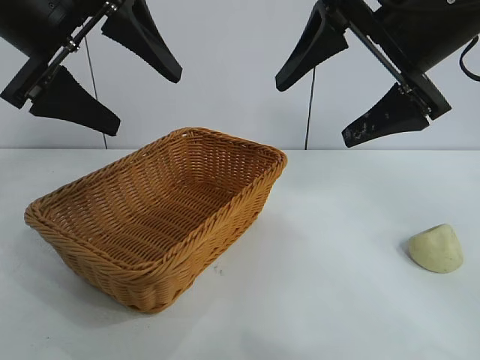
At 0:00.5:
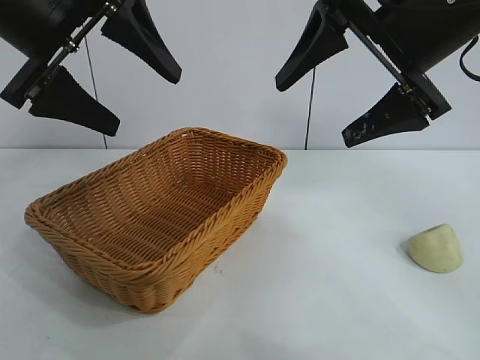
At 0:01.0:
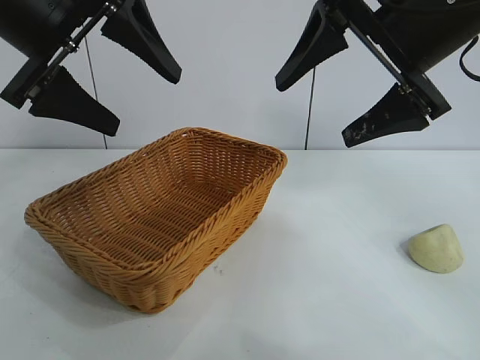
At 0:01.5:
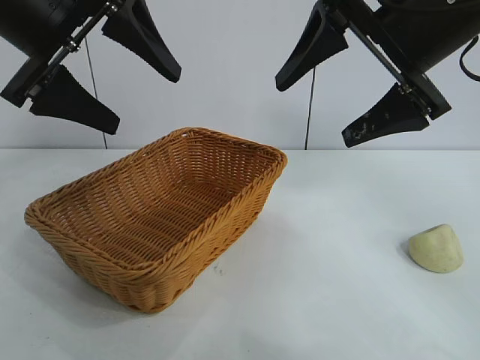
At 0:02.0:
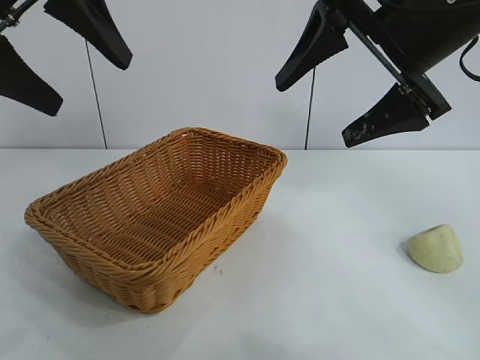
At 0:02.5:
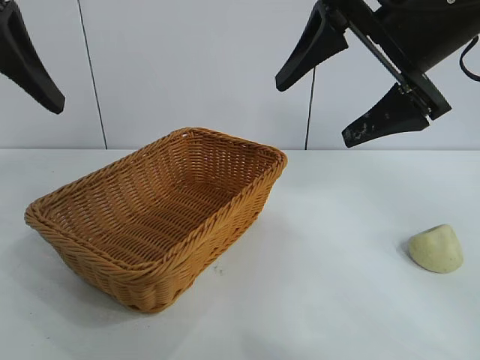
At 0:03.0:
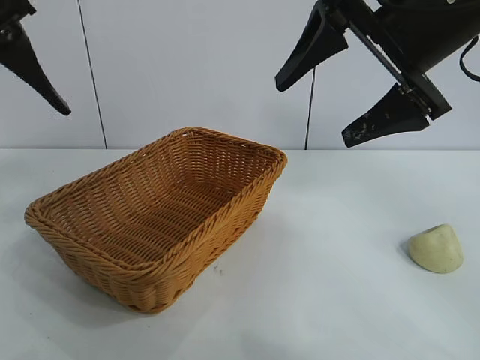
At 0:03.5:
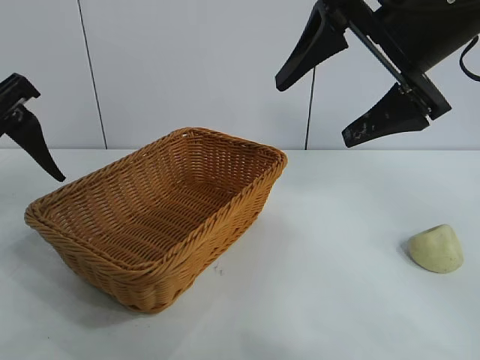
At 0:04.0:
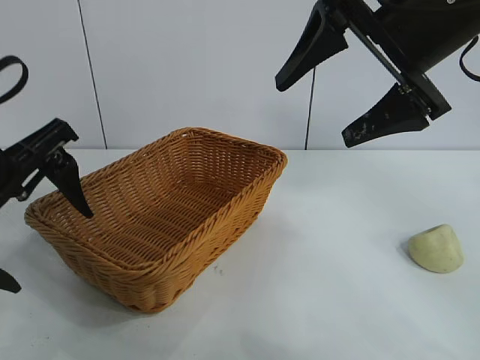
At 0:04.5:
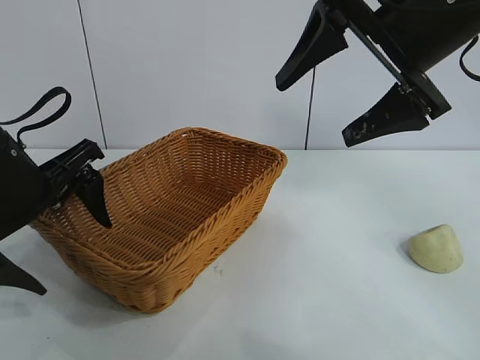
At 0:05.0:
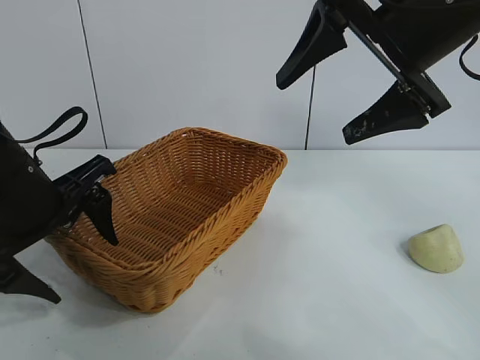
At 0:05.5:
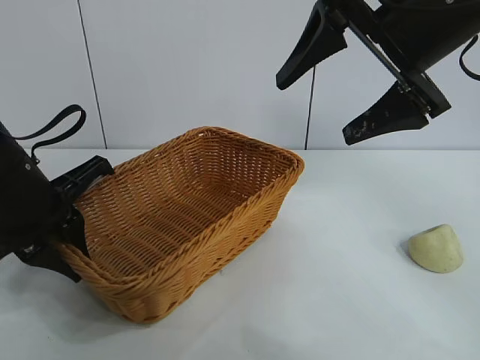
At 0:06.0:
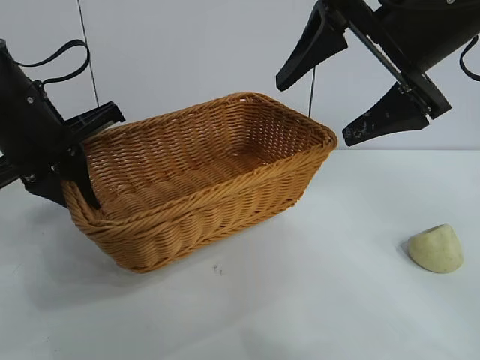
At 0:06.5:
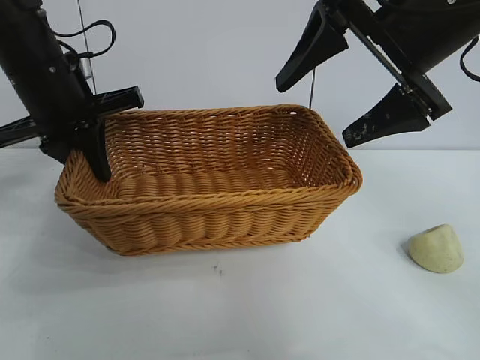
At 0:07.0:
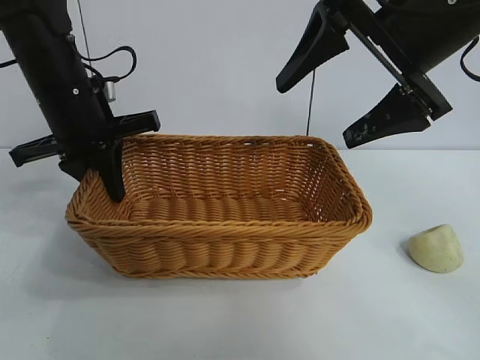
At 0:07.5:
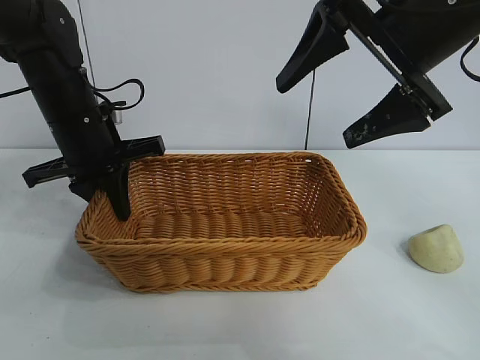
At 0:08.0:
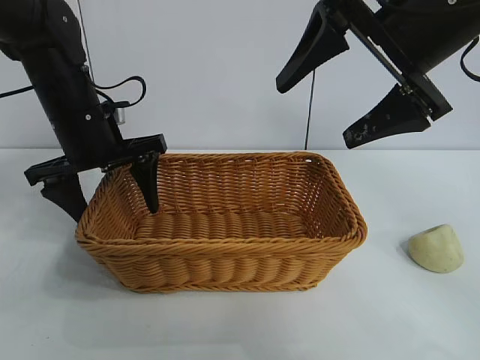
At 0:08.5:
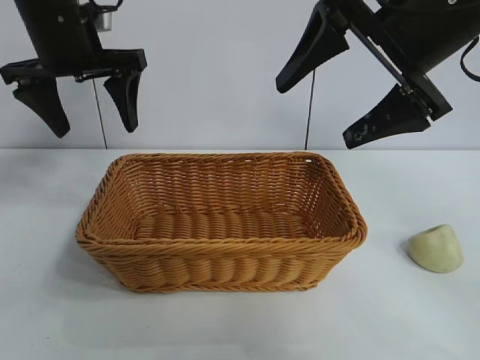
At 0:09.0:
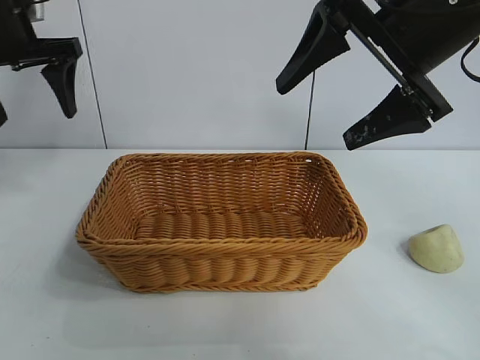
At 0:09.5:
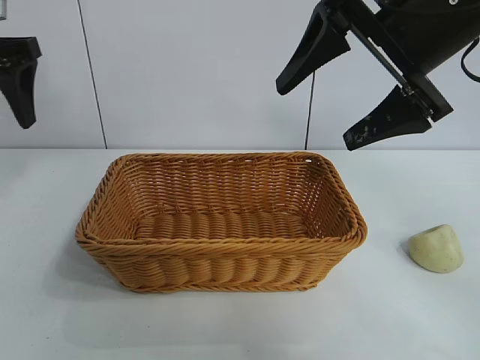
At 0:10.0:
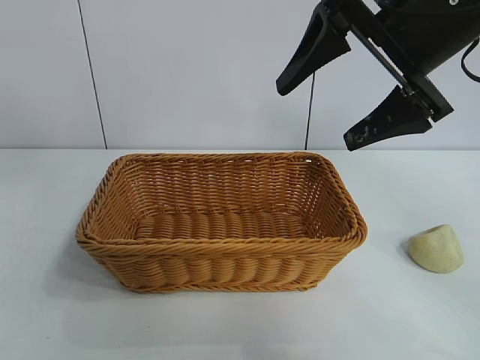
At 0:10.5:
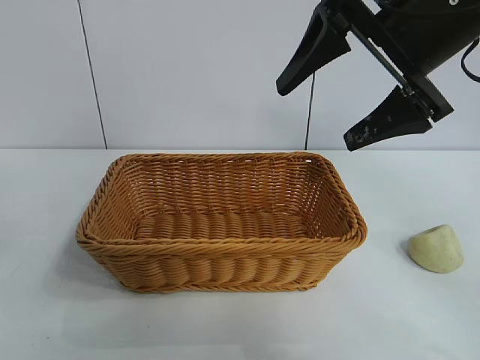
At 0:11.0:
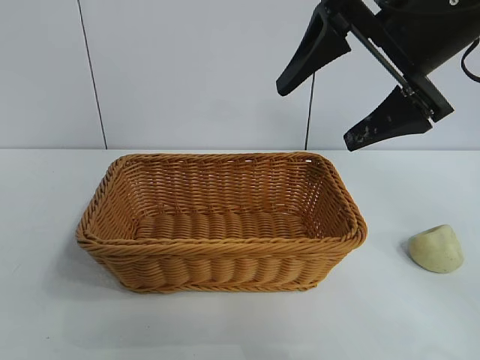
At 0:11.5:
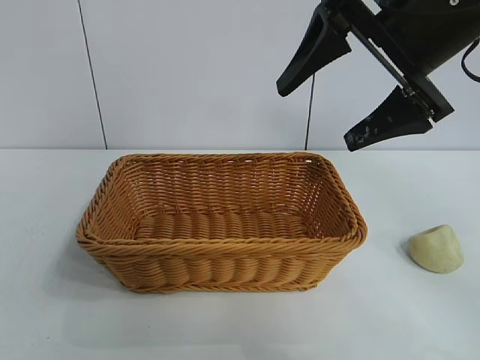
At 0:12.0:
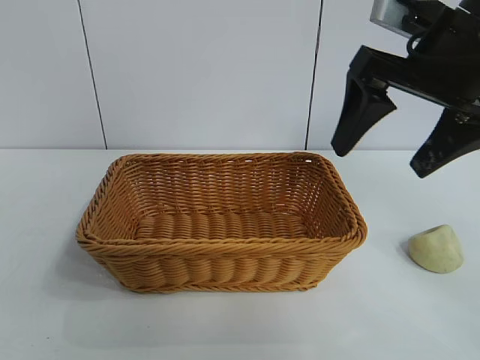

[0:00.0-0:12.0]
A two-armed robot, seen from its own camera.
Task of the whole recording: pick up the egg yolk pastry and put it into the basket.
Step, 0:01.5 to 0:05.0: Grasp the basket with left gripper.
Step, 0:05.5 to 0:07.5: Place the basket in the center of view with left gripper.

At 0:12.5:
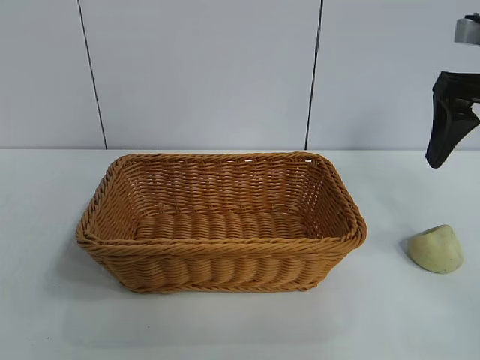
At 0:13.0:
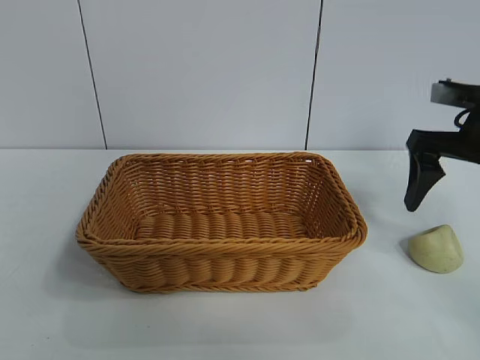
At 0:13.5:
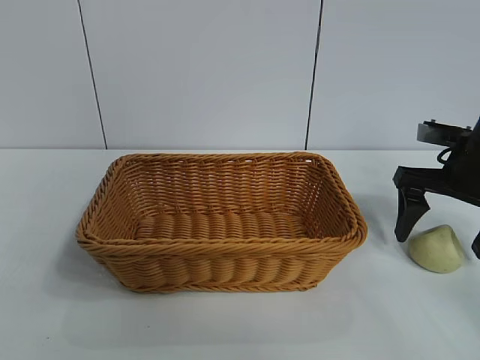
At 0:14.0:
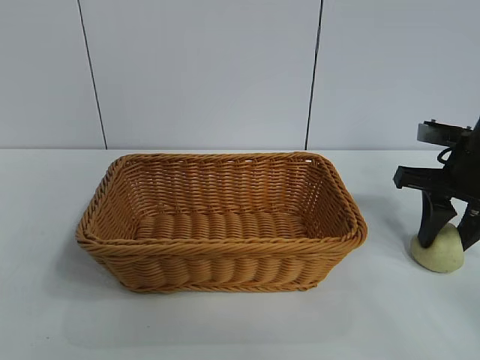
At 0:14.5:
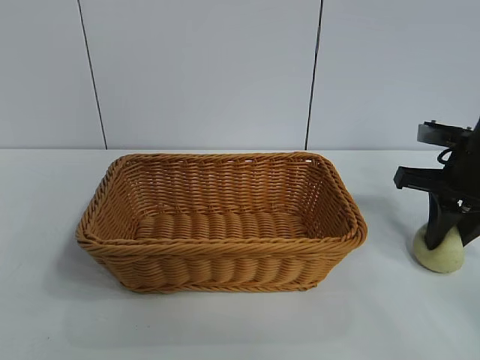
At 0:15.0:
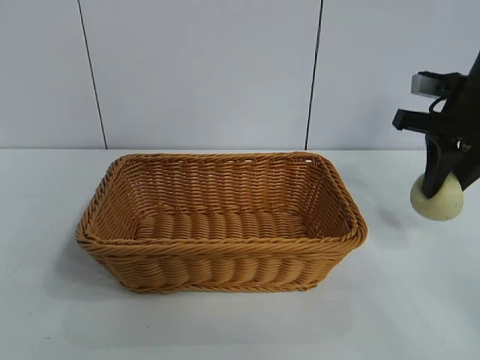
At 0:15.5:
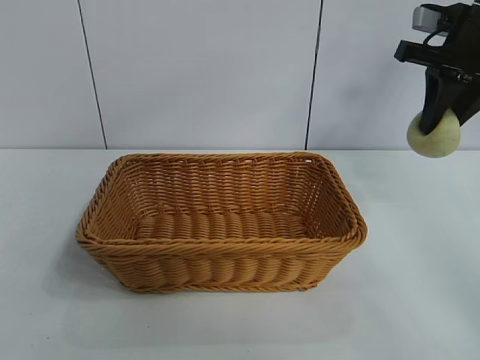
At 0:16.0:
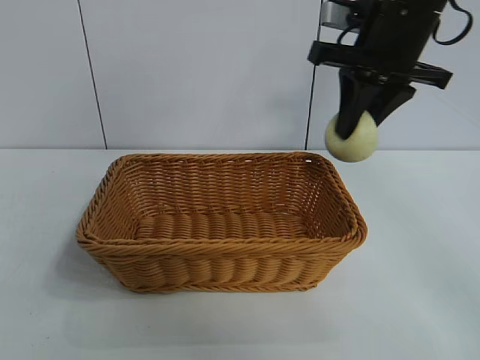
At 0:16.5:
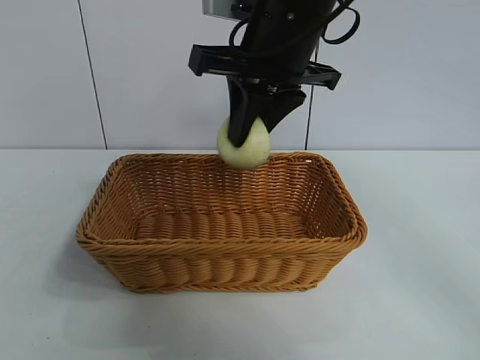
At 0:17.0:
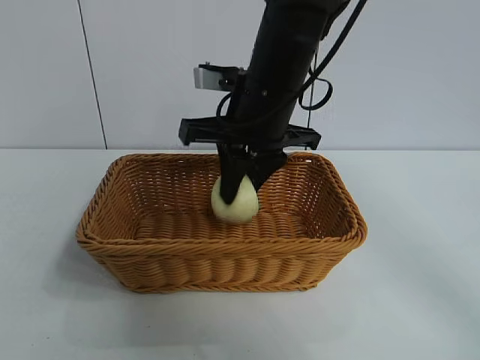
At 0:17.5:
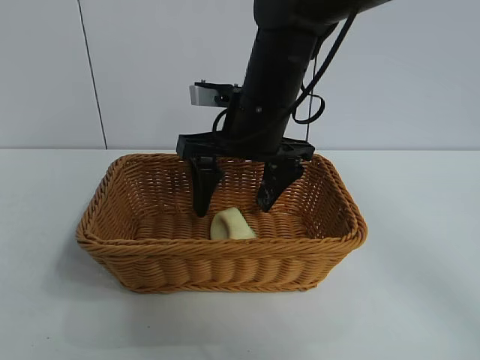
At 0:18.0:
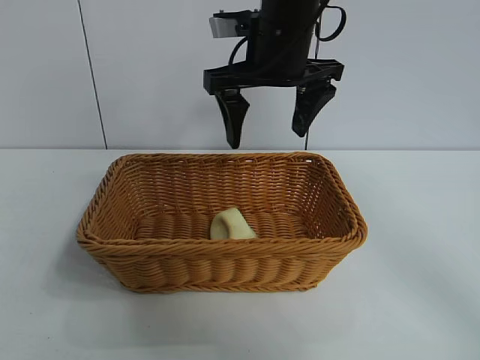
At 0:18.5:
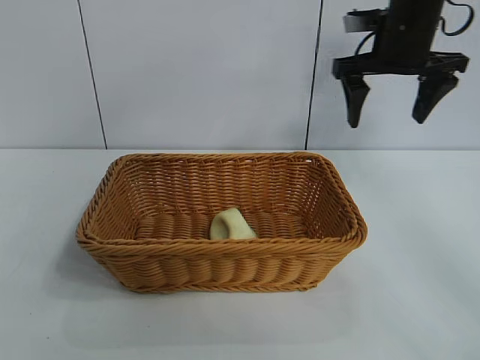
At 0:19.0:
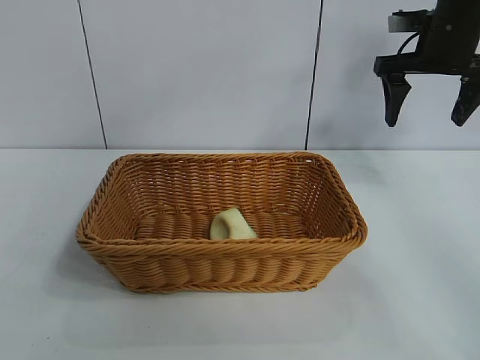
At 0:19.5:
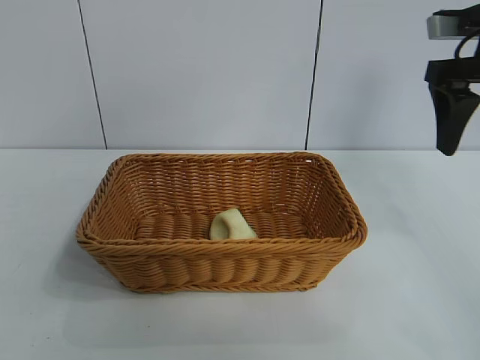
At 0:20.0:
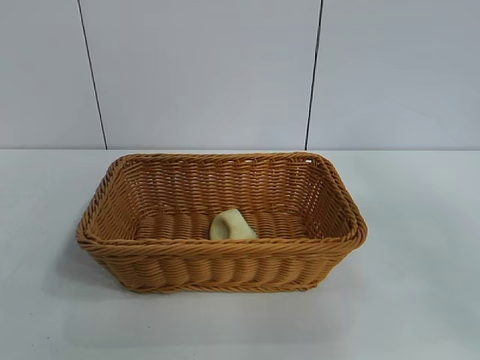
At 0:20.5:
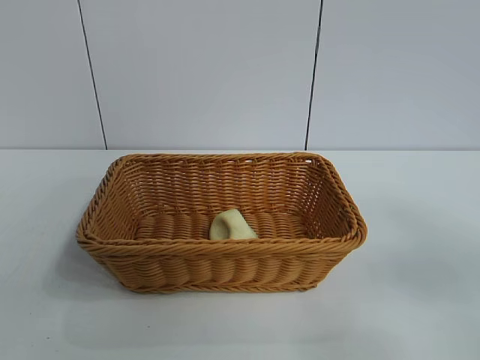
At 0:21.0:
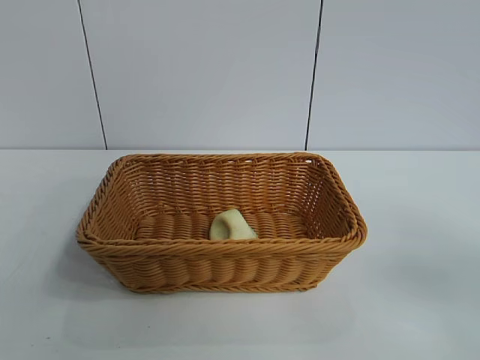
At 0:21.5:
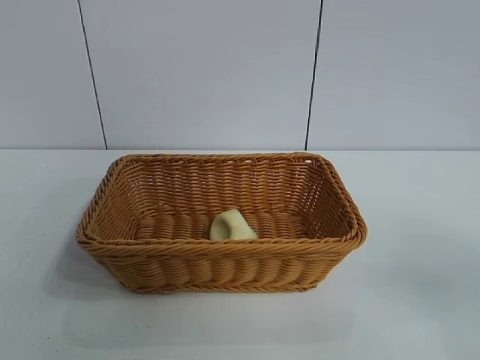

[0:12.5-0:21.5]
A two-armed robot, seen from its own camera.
Task of the whole recording: pick up the egg yolk pastry and put it into the basket.
Step, 0:14.5 to 0:17.0: Place the egg yolk pastry in the basket with right gripper.

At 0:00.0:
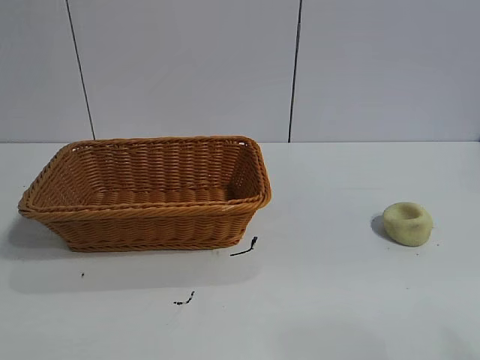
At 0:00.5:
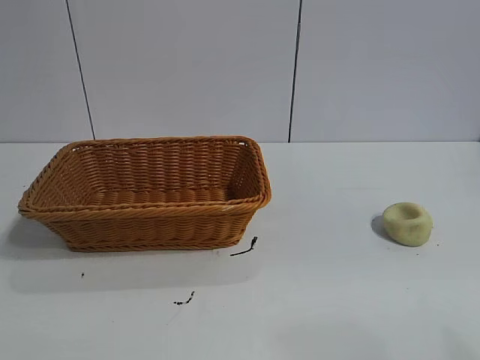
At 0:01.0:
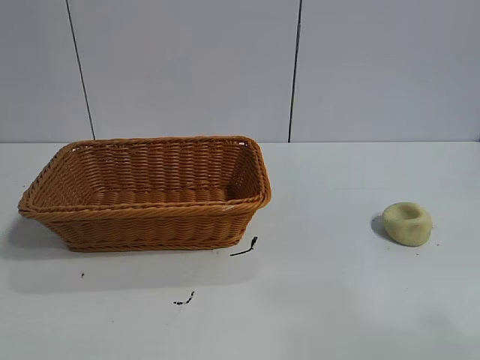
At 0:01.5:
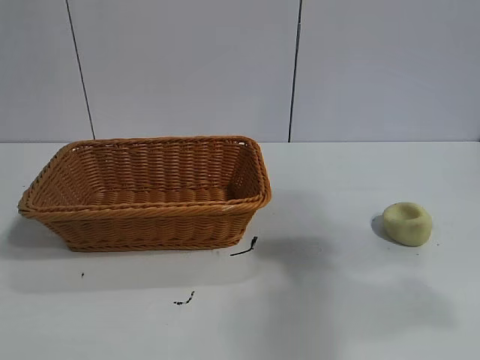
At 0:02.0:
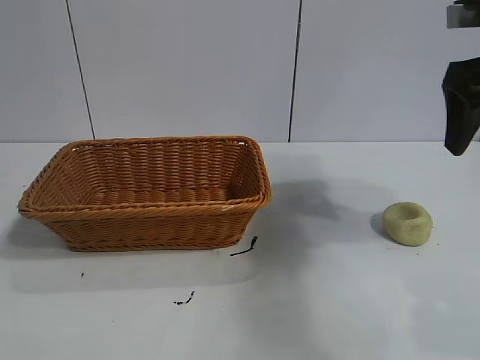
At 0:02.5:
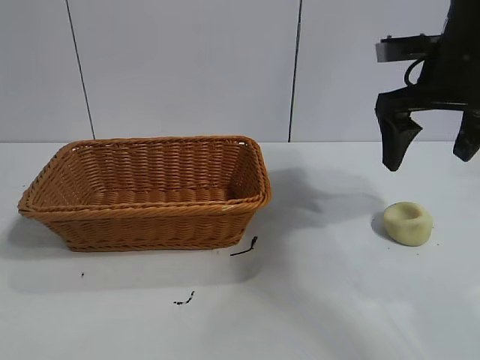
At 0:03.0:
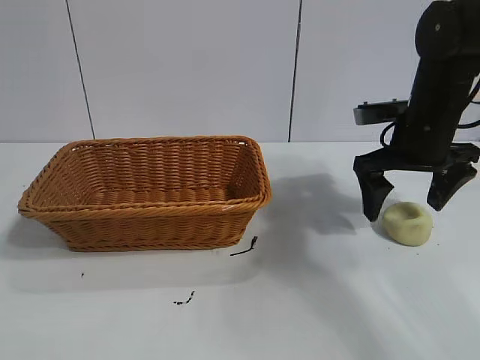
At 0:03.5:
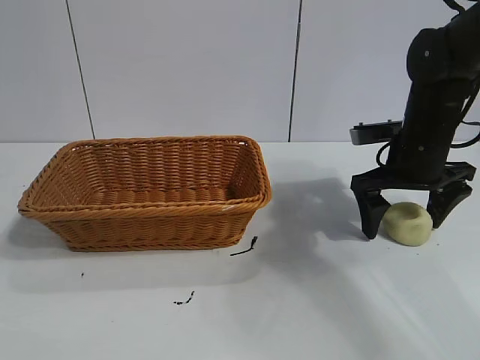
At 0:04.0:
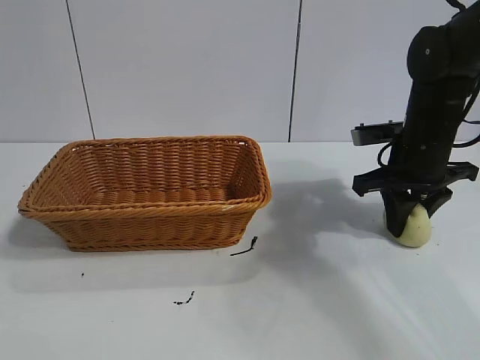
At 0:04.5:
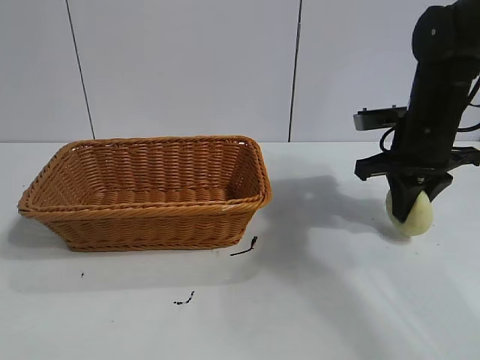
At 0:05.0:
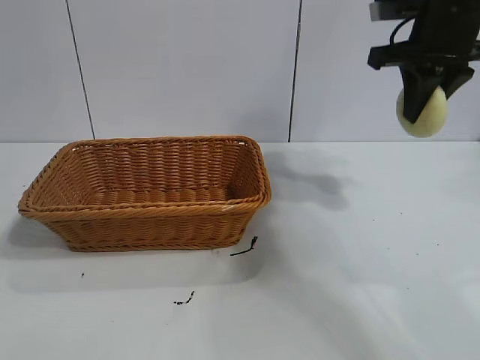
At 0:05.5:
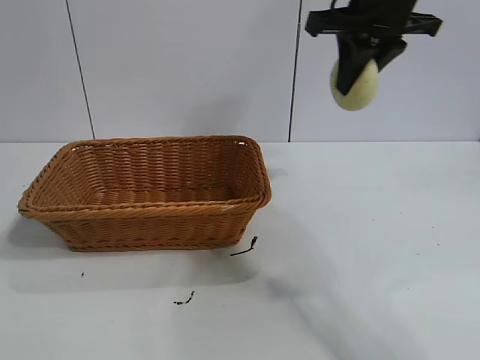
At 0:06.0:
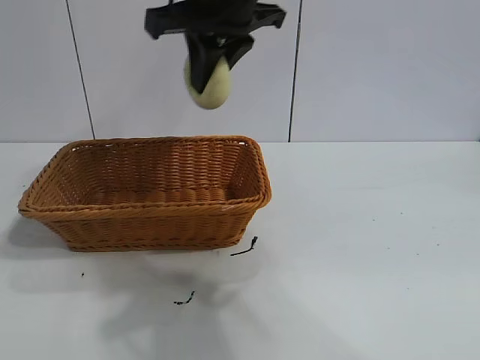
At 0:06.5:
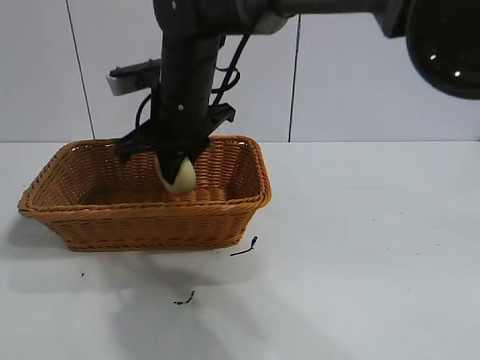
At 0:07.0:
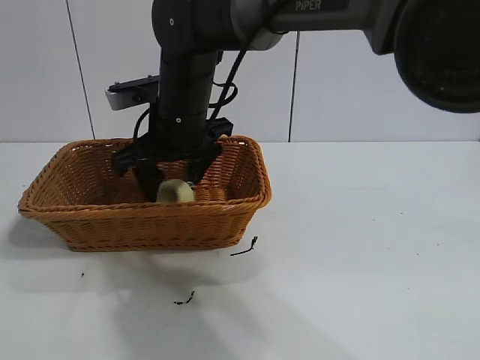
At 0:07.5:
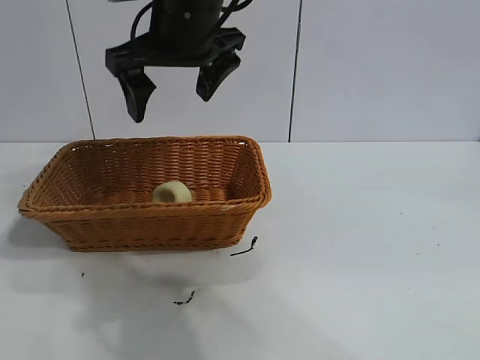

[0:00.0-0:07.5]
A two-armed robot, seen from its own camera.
Task of the whole recording: pick up the egg yolk pastry and put it into the basket.
Step, 0:01.0 to 0:04.0: Grasp egg yolk pastry with right gripper.
Step, 0:04.5 to 0:07.0: Place the egg yolk pastry in the basket with right gripper.
